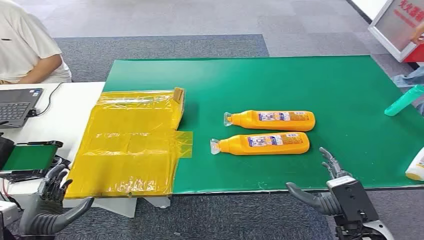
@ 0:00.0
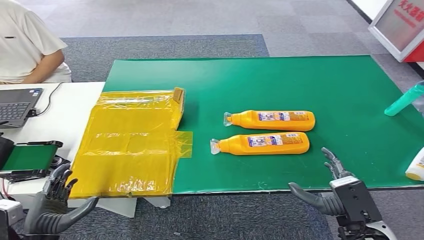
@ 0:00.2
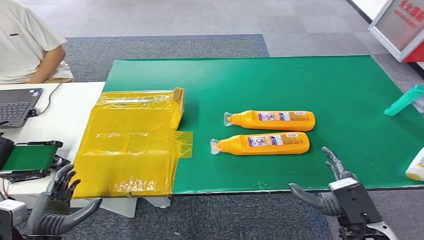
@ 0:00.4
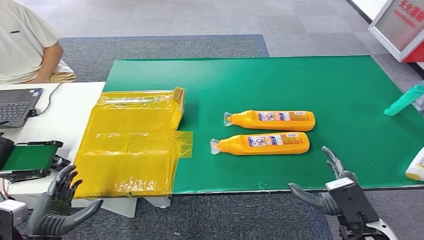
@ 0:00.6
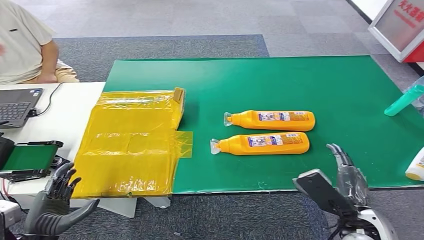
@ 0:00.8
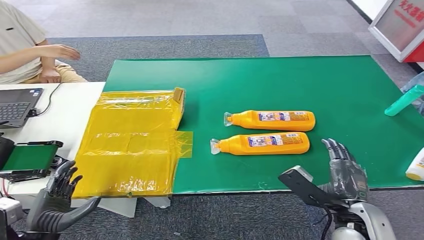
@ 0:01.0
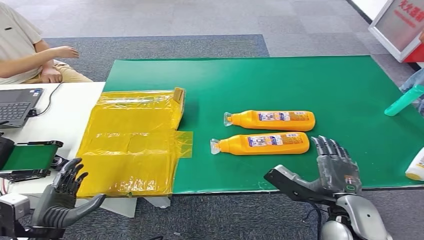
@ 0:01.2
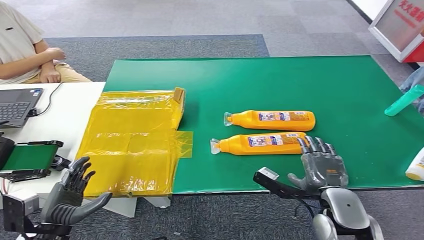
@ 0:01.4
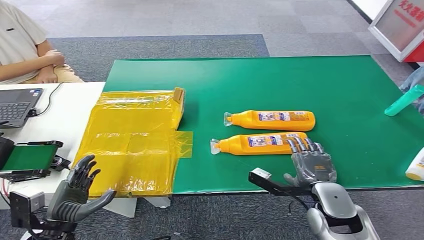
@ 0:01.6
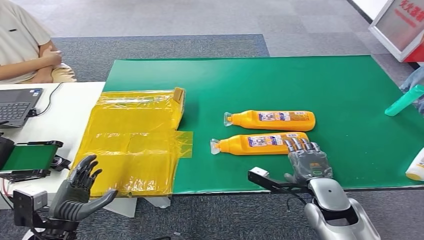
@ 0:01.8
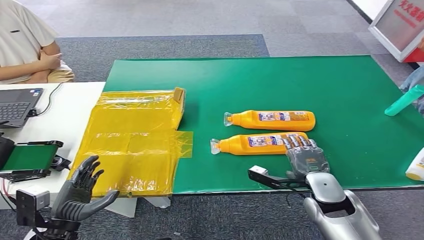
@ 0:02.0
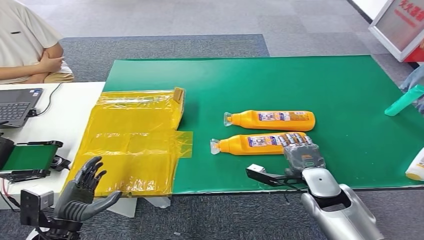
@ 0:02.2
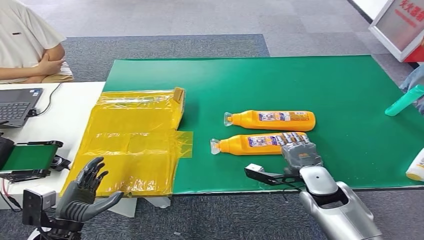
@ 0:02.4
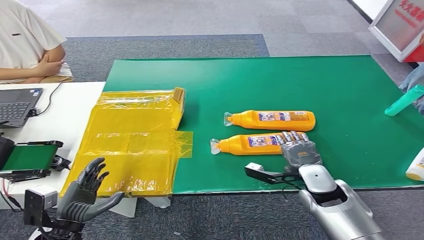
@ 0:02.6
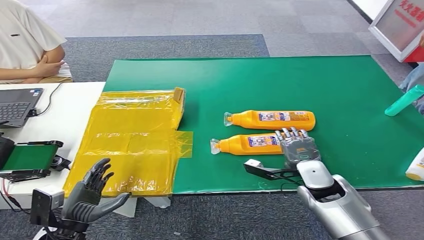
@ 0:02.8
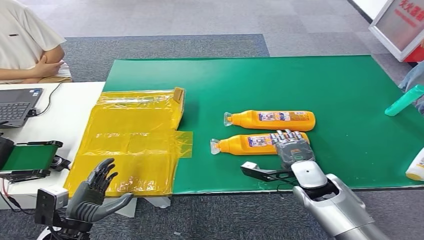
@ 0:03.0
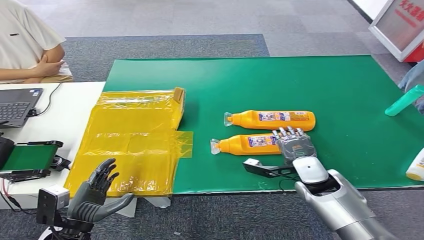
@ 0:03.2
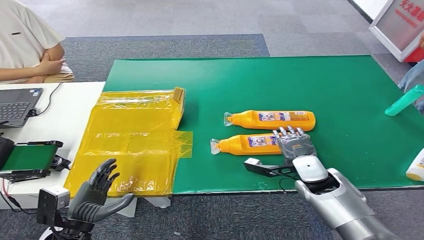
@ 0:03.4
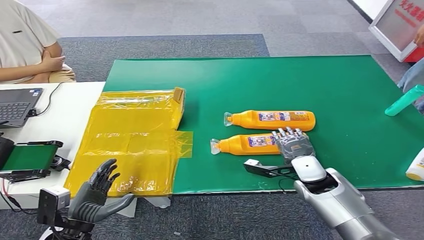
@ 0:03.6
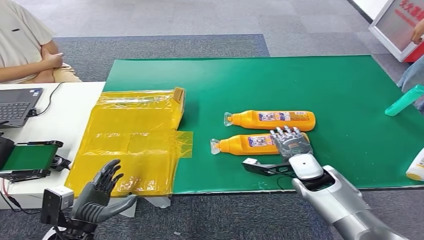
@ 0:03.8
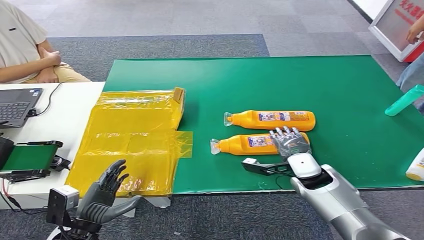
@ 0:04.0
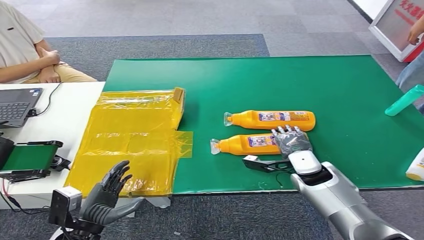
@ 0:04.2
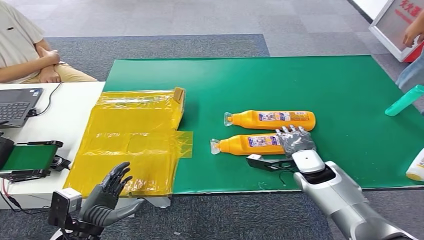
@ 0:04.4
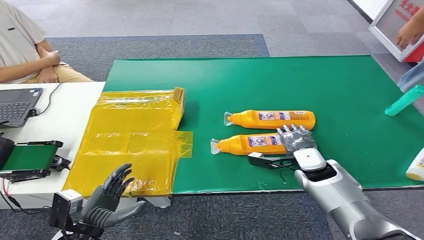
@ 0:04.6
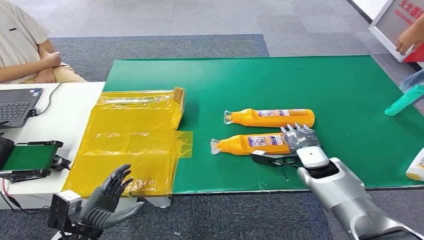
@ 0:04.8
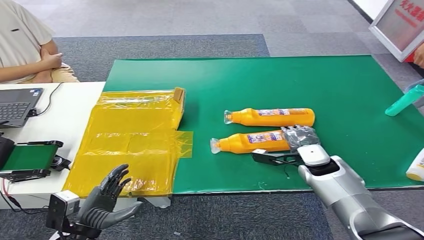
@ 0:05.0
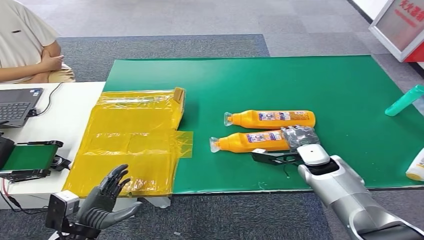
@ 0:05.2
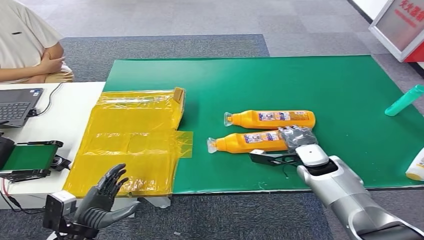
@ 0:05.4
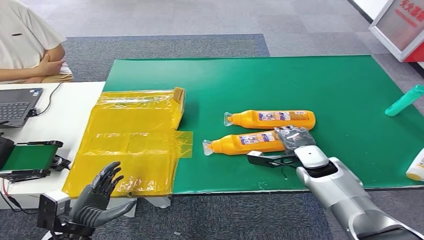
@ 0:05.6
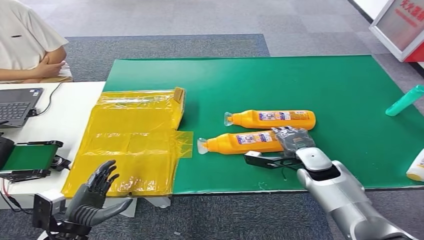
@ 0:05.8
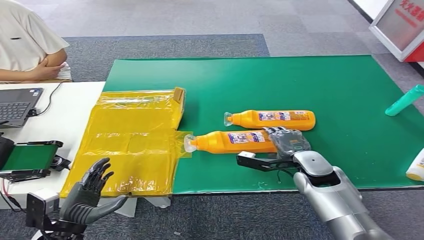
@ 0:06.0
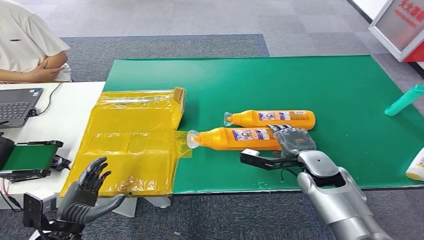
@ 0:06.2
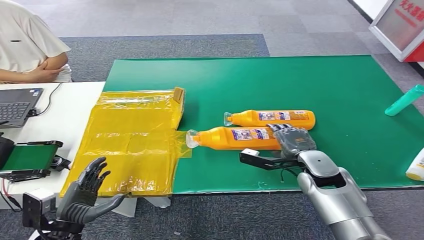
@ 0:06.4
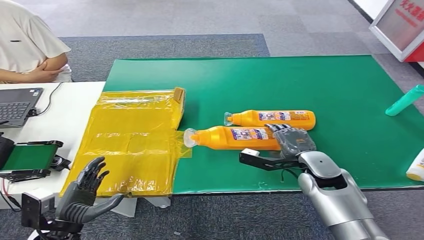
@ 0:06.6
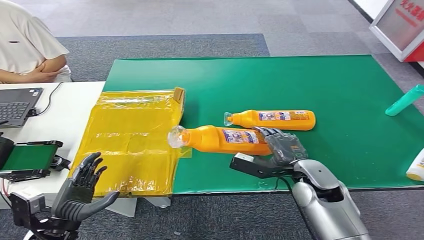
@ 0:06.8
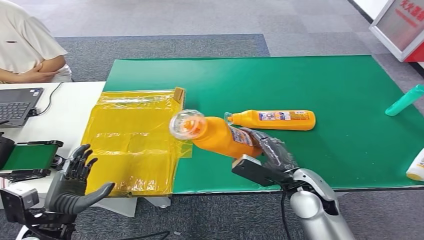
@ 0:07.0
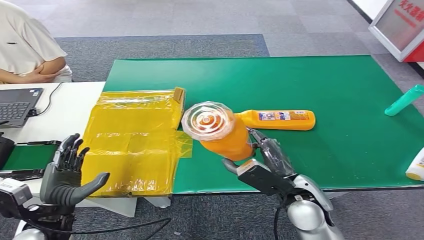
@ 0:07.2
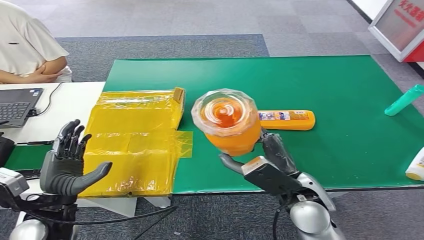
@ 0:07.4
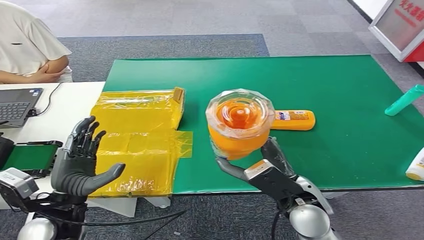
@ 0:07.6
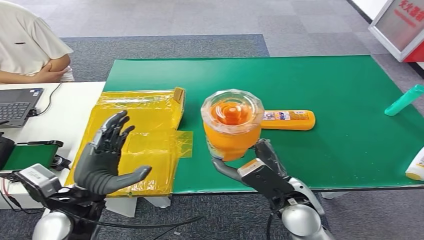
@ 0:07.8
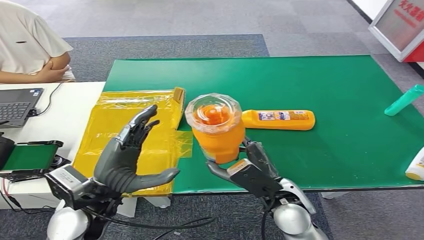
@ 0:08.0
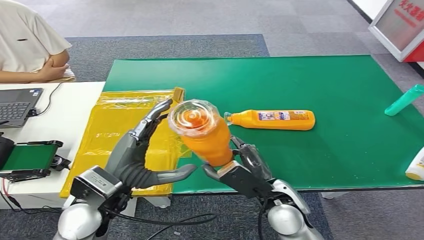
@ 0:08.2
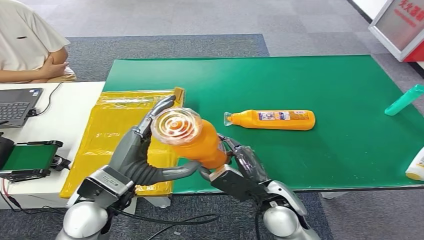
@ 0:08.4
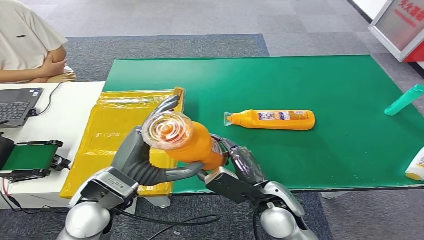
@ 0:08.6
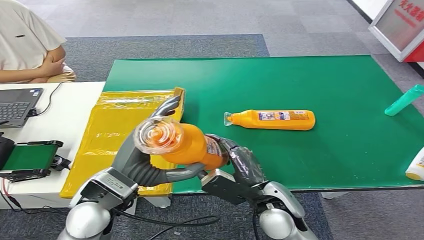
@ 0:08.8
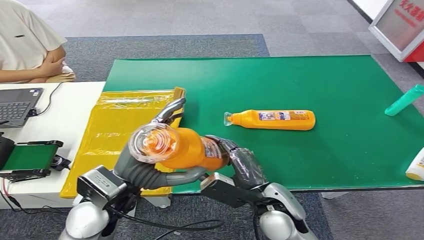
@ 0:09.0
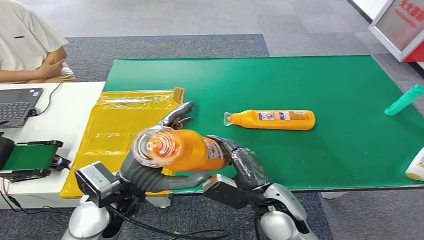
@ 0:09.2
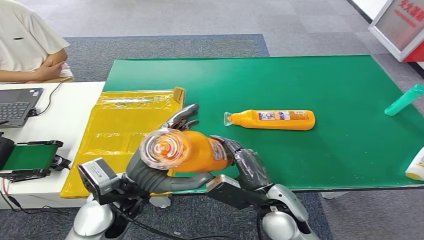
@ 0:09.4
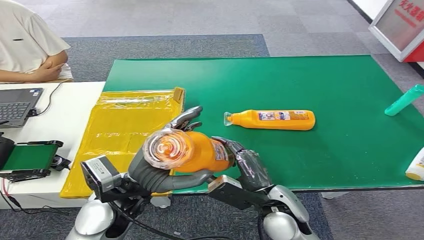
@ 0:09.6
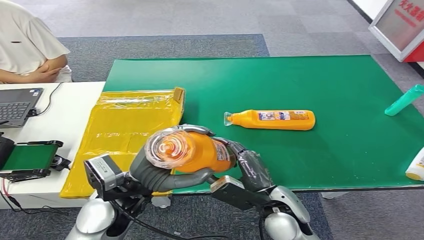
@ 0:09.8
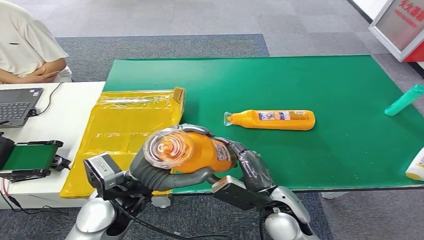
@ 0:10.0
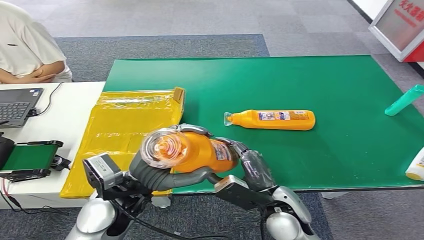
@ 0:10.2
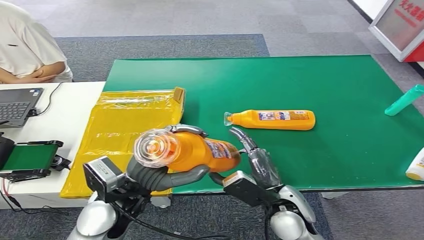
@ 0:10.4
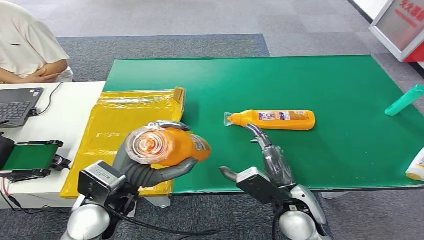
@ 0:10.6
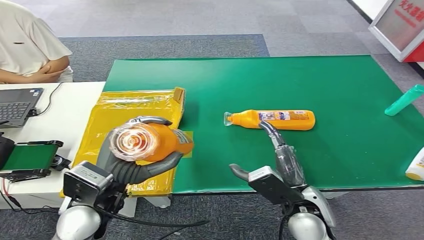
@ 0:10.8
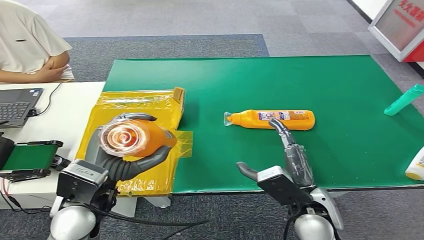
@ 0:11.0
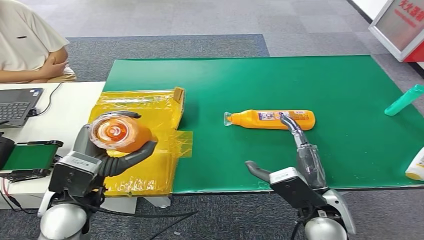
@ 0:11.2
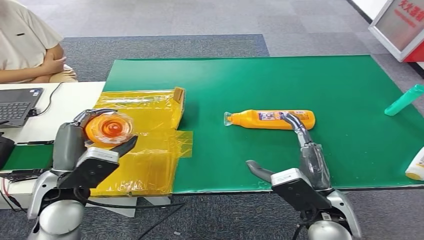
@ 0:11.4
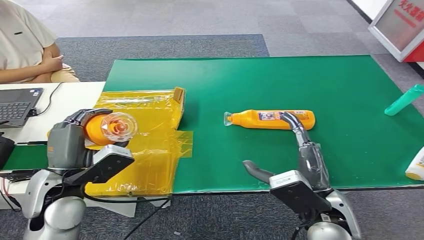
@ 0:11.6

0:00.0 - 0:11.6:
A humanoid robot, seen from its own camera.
Step, 0:00.0 - 0:06.6: Pick up the bottle from the table.
0:01.4 - 0:02.8: The right hand is displaced forward by some 10 cm.
0:02.8 - 0:04.4: The hands make only small movements.
0:04.4 - 0:05.8: The hands move only a little.

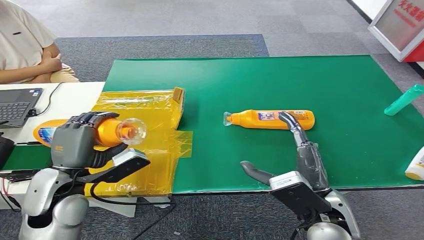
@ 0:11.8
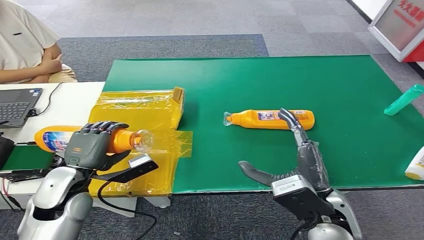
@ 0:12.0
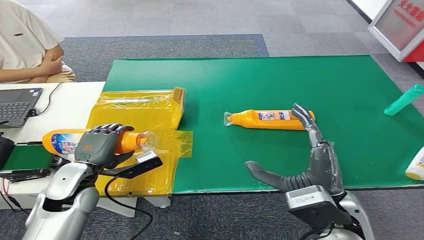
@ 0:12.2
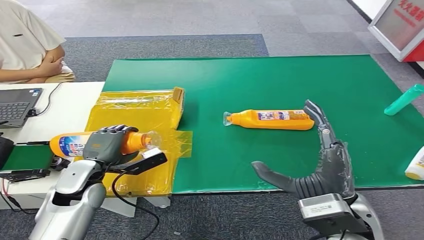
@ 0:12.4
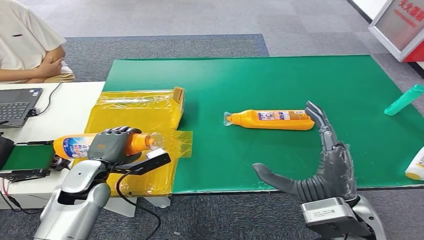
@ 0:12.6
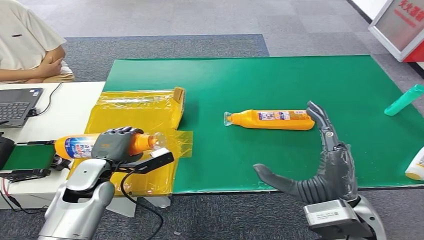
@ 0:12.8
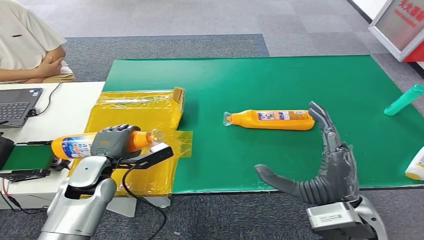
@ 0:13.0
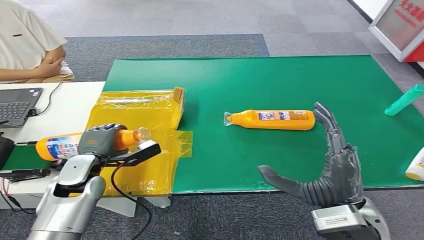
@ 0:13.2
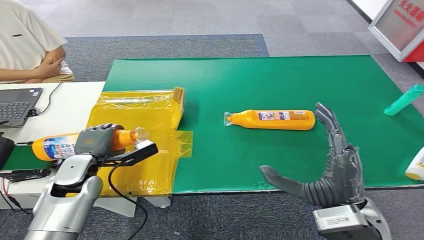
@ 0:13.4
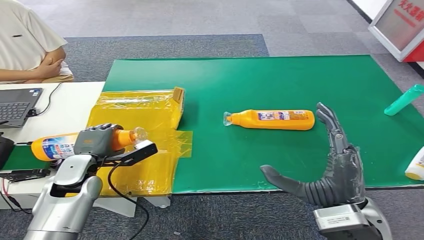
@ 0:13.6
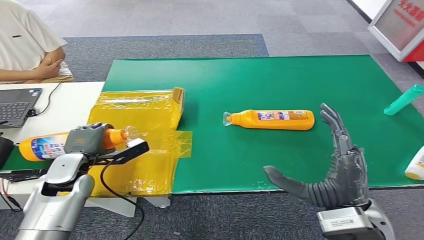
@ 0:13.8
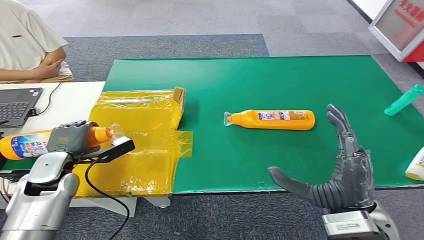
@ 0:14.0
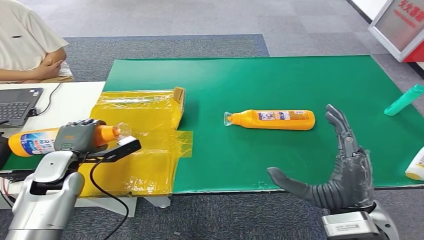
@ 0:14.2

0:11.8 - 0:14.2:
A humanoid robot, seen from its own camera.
Step, 0:11.8 - 0:14.2: Turn the bottle to the front side.
0:11.8 - 0:13.0: The left hand travels downward and forward by about 10 cm.
0:13.0 - 0:14.2: The left hand heads to the left, covering approximately 5 cm.

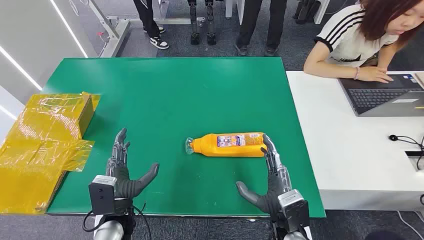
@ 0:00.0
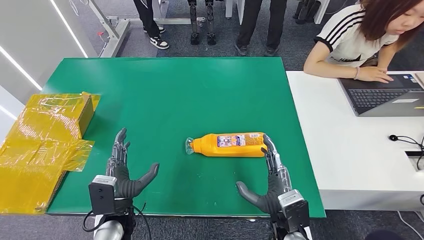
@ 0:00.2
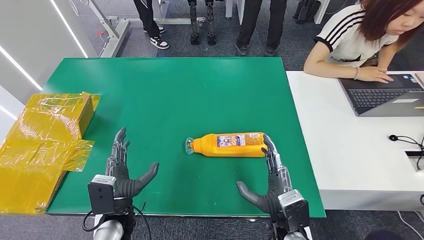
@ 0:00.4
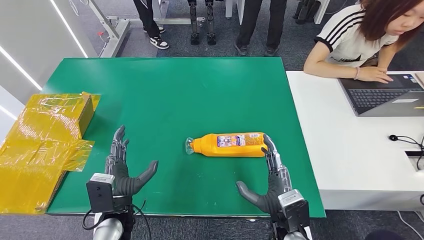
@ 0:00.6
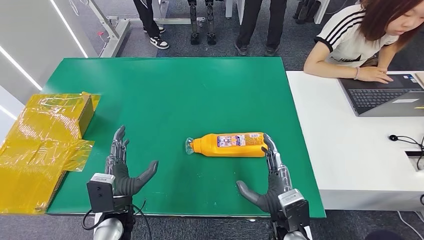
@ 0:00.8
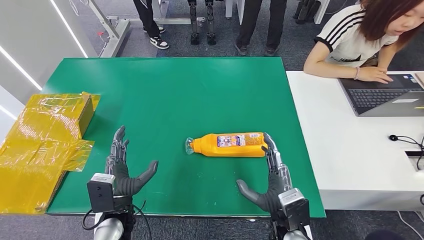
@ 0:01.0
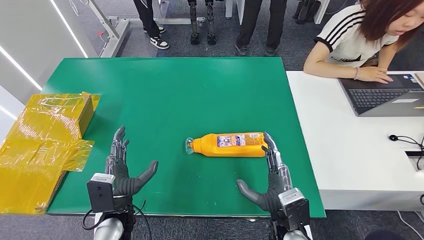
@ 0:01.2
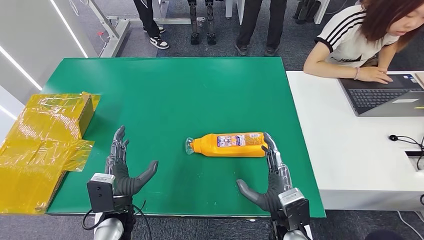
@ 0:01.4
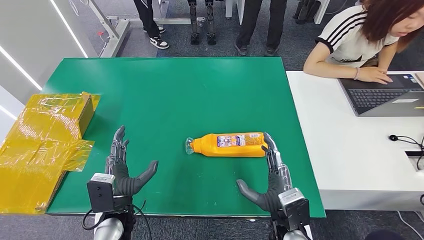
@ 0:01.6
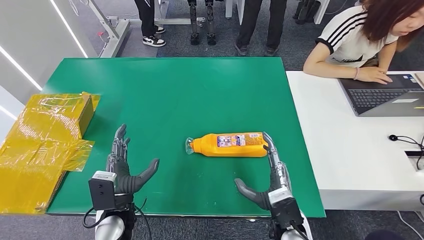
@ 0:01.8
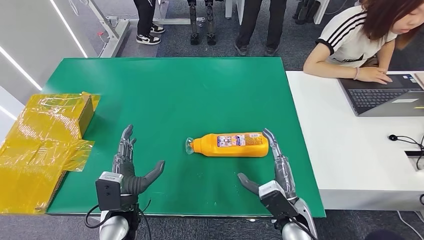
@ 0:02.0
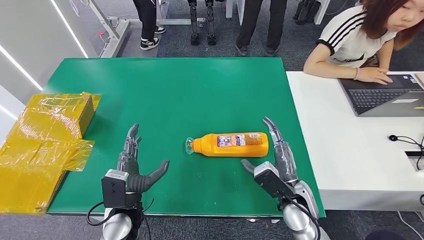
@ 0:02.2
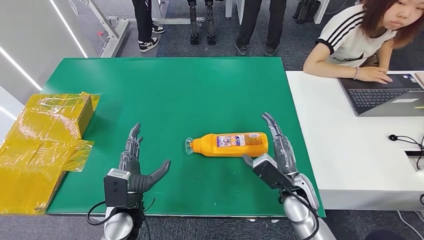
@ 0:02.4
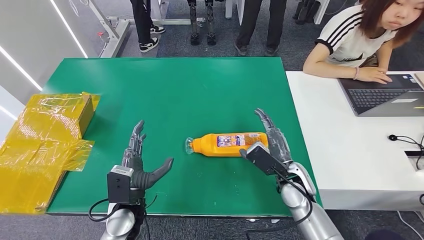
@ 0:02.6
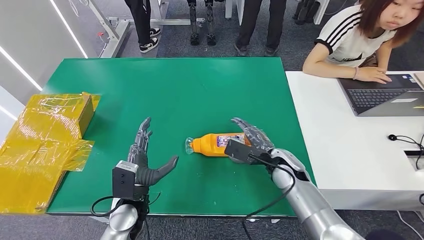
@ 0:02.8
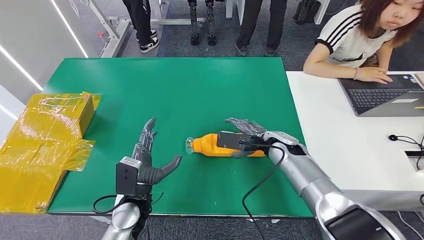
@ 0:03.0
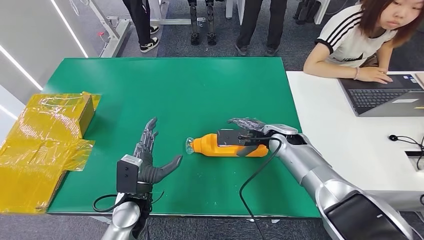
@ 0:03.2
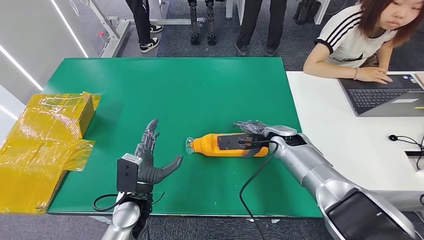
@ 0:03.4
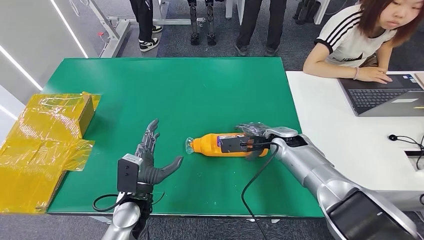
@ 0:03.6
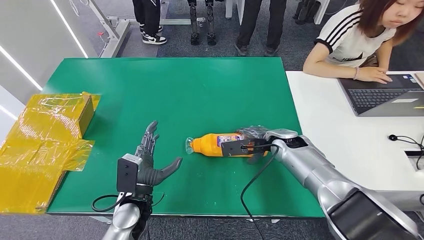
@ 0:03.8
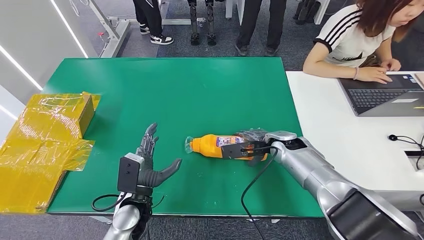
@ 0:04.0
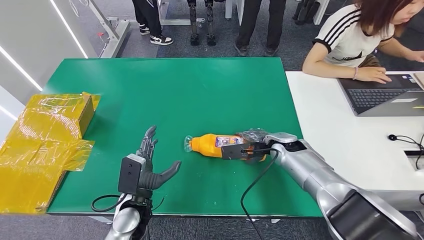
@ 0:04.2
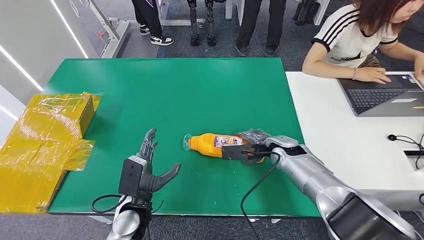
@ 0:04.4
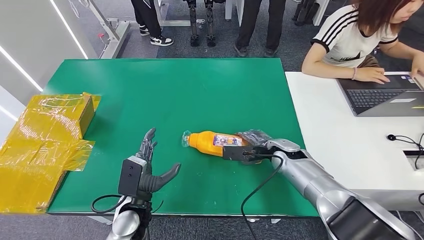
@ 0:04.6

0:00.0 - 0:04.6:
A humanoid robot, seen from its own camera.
0:01.6 - 0:03.0: The right hand moves forward, approximately 20 cm.
